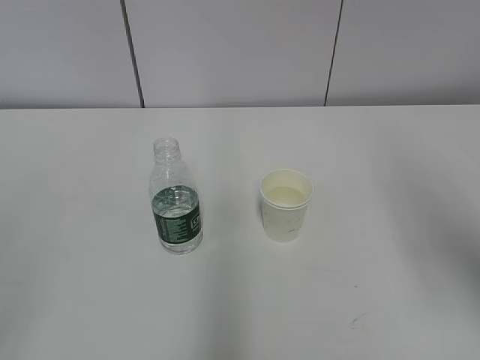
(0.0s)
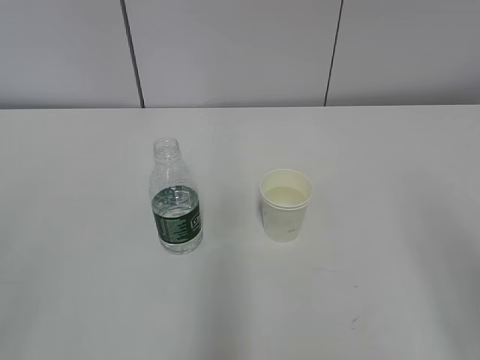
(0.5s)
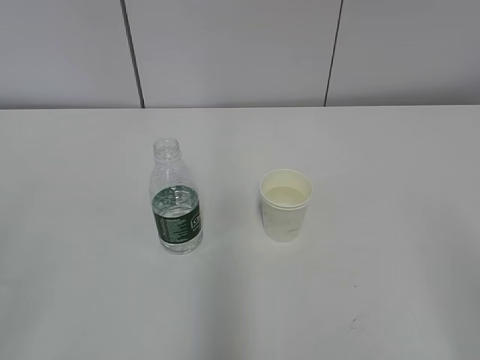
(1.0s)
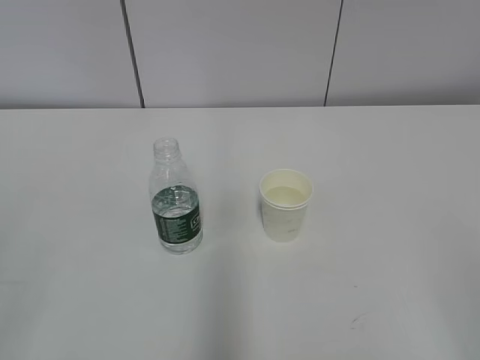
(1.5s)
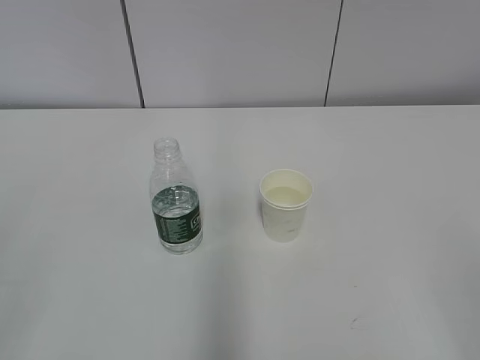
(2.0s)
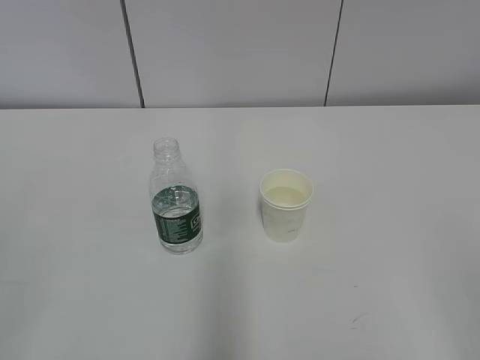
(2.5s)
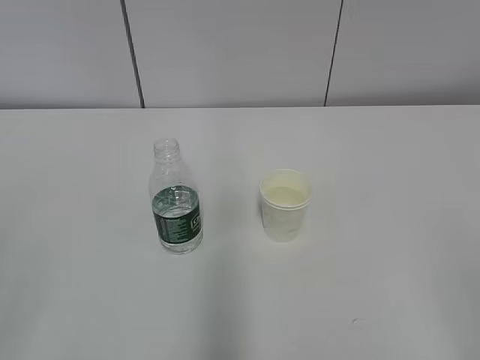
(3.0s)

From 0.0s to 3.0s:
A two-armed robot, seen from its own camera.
From 0.0s to 1.5s: The right gripper is displaced backward by roughly 20 cm.
From 1.5s to 3.0s: Both grippers stay about where they are.
